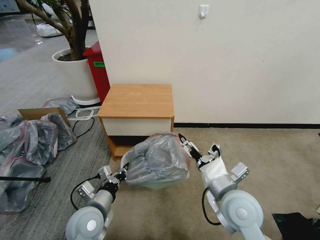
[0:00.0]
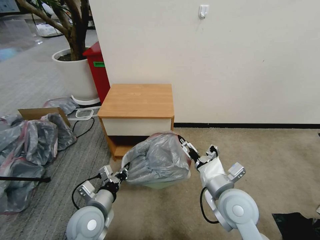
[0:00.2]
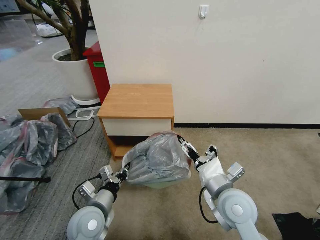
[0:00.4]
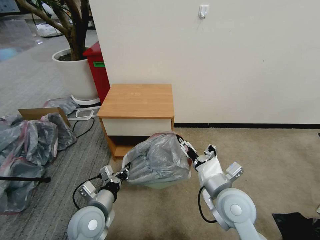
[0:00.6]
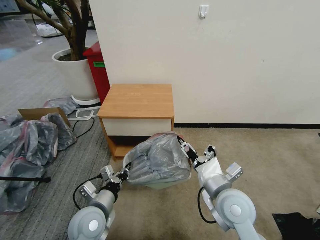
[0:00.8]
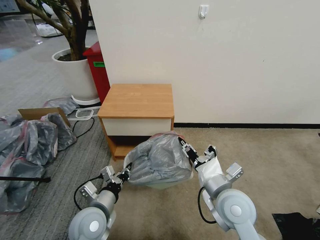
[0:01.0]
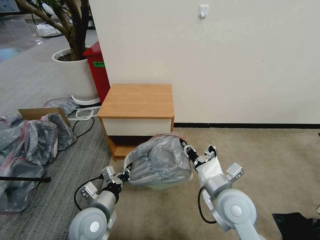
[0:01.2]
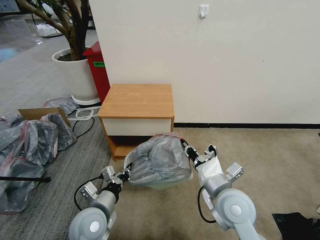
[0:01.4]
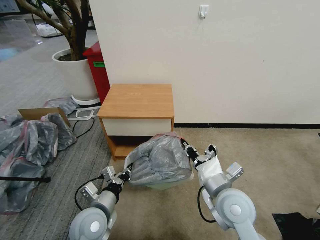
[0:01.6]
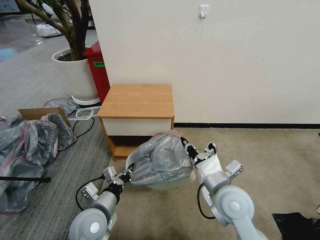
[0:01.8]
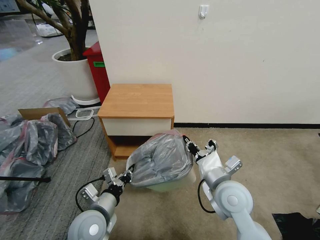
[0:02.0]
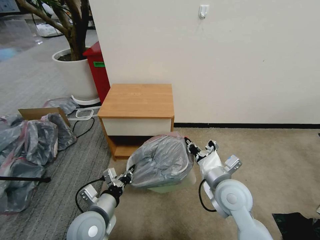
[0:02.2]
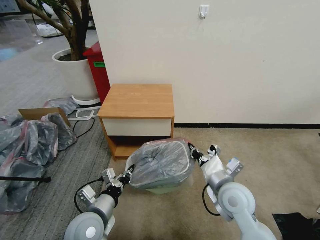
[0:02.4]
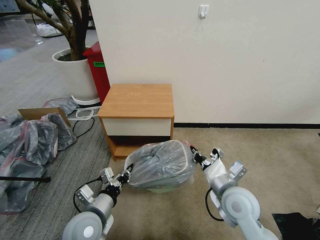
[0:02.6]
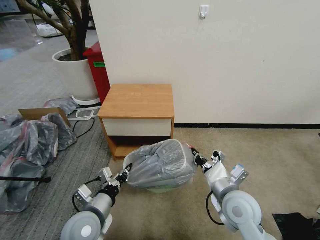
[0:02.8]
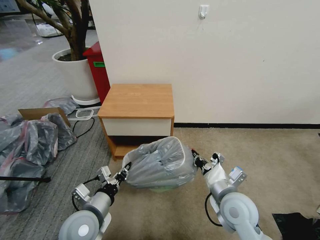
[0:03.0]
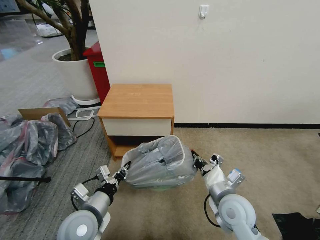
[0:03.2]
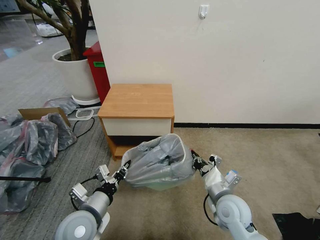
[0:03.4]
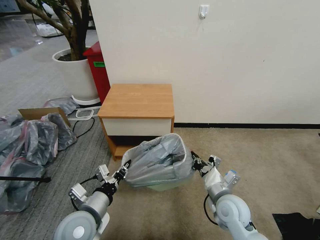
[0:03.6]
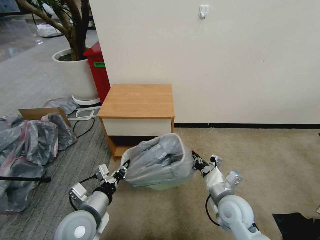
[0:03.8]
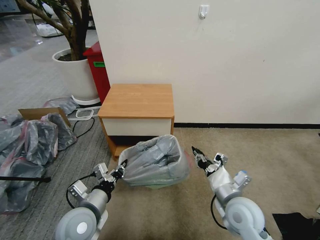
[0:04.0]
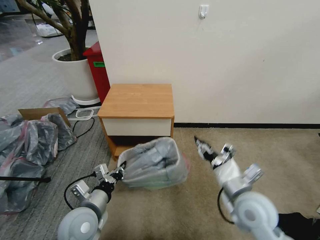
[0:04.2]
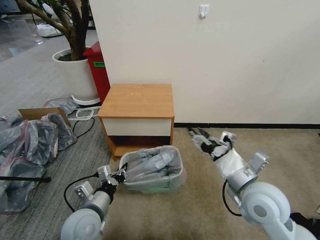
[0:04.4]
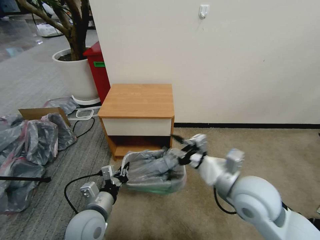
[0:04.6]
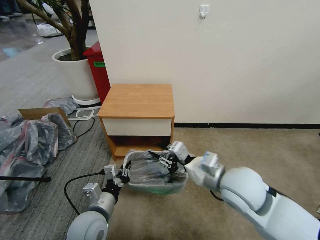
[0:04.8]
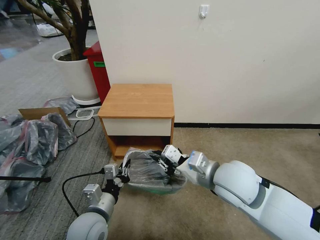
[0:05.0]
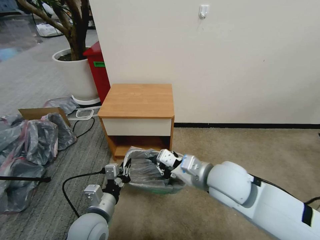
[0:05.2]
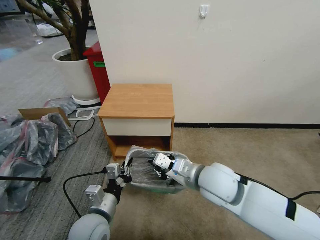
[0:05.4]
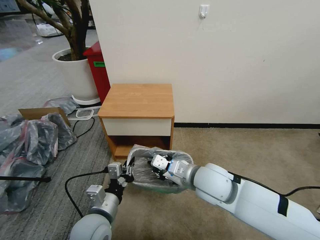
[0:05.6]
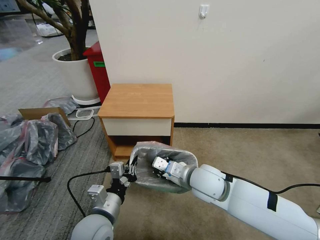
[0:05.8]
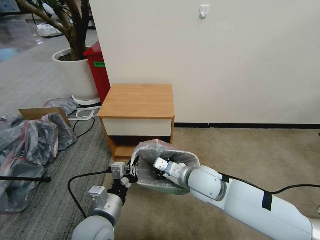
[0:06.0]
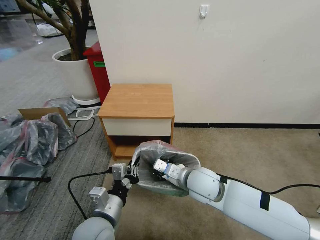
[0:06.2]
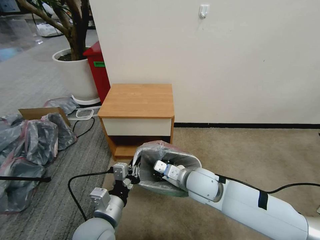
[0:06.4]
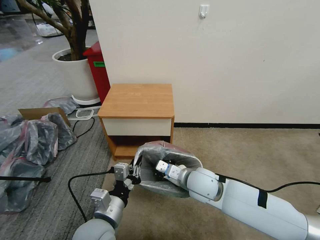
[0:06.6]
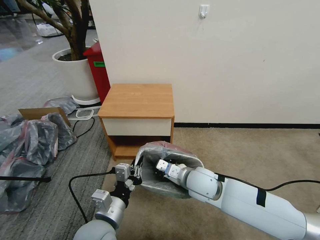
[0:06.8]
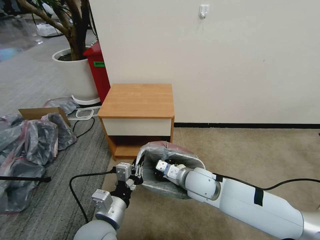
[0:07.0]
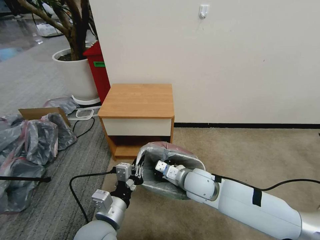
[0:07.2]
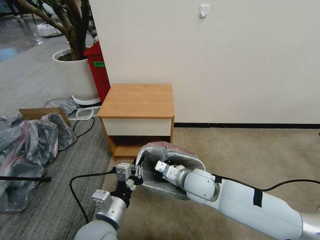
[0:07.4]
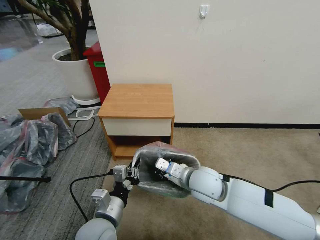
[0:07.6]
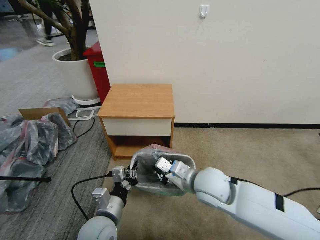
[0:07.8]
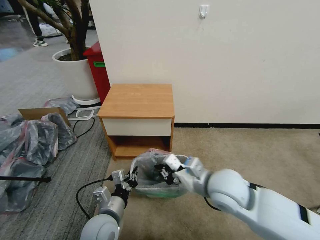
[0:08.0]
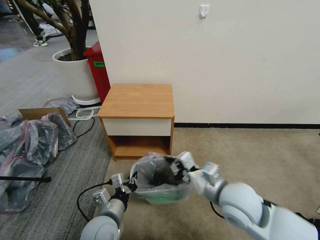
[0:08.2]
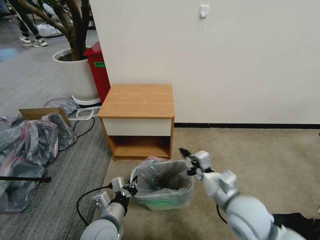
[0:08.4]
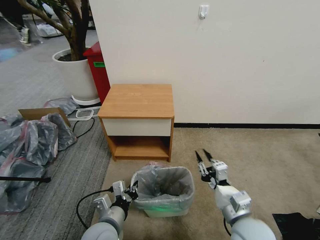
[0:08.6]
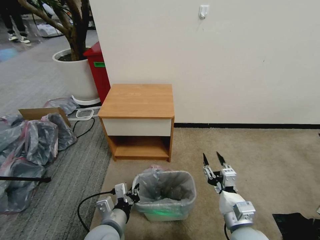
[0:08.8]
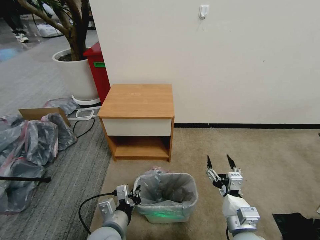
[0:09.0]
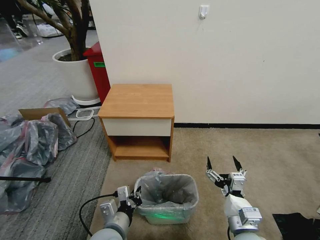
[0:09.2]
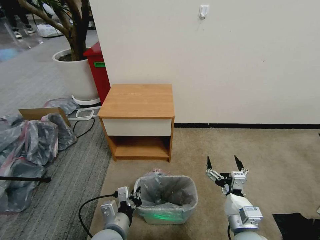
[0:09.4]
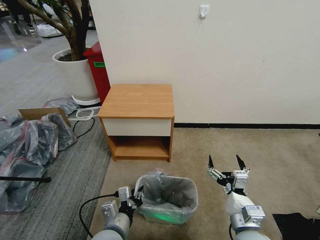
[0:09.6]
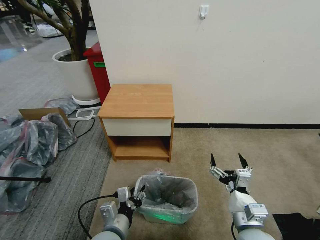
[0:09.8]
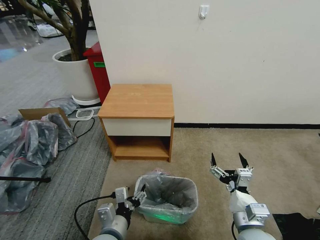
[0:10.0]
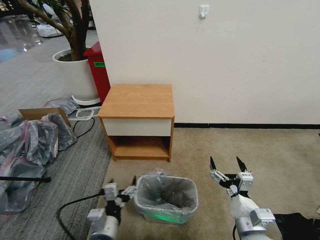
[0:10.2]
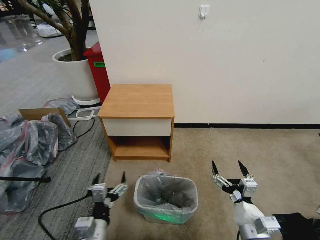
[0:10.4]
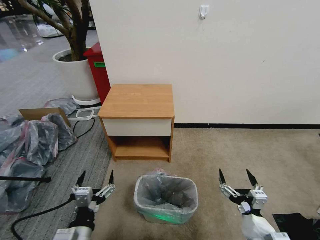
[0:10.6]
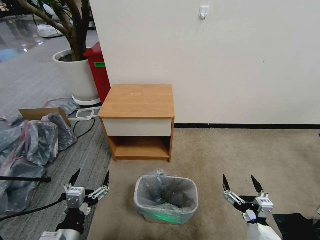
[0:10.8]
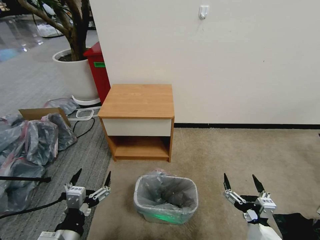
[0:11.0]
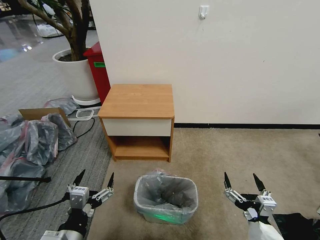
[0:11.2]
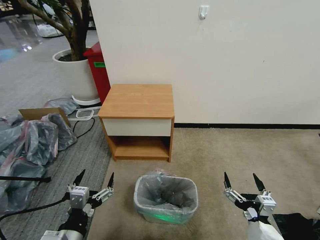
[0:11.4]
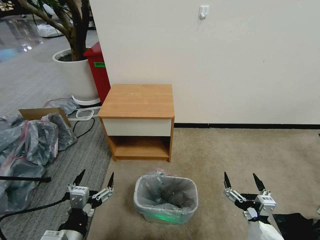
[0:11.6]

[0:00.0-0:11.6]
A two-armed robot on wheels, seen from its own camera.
Task of the whole recording: Pick up the garbage bag from the table and place it over the trash can.
0:00.0 to 0:01.4: The right gripper closes up.
0:01.4 to 0:02.8: The grippers stay close to where they were, moving slightly.
0:02.8 to 0:04.4: The right gripper travels upward by about 5 cm, and opens.
0:04.4 to 0:05.8: The right gripper heads to the left and forward, covering some 15 cm, and closes its fingers.
0:05.8 to 0:07.2: The right gripper goes approximately 5 cm downward.
0:07.2 to 0:08.8: The left gripper goes roughly 5 cm downward; the right gripper travels backward and to the right by roughly 20 cm, and opens.
0:08.8 to 0:10.2: The left gripper opens up, while the right gripper opens up.
0:10.2 to 0:11.6: The left gripper moves to the left and upward, about 10 cm. Meanwhile the right gripper is displaced backward by approximately 5 cm.

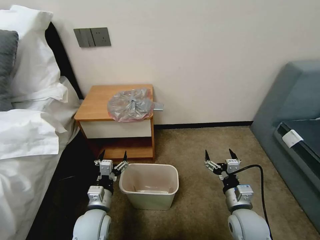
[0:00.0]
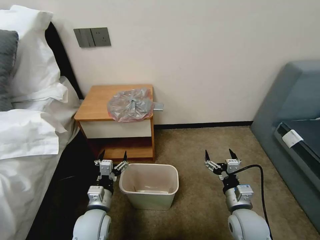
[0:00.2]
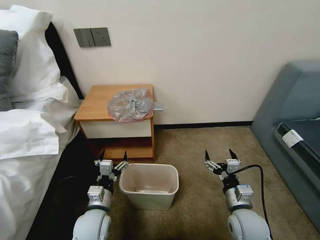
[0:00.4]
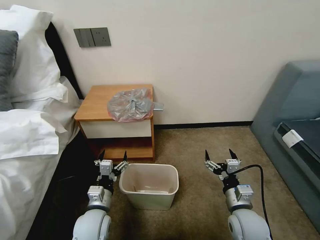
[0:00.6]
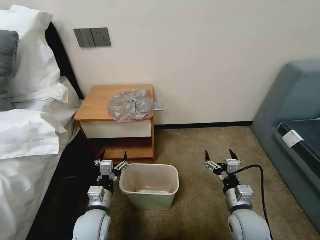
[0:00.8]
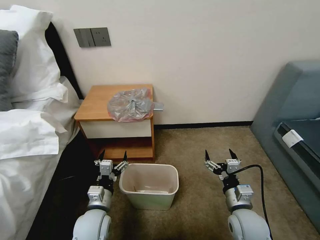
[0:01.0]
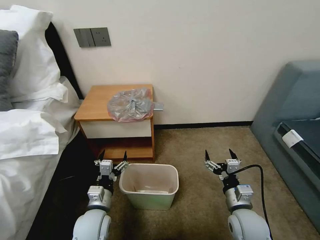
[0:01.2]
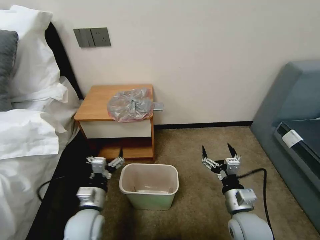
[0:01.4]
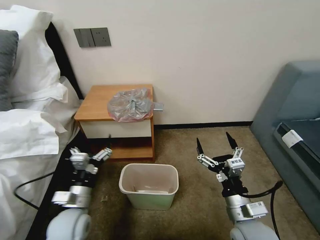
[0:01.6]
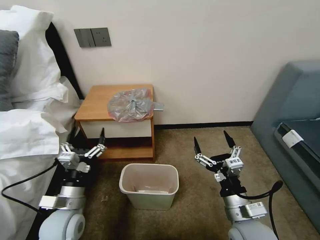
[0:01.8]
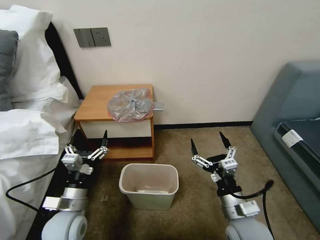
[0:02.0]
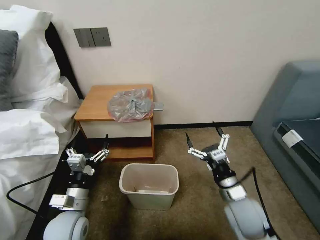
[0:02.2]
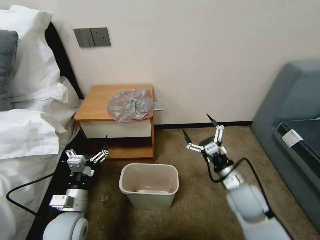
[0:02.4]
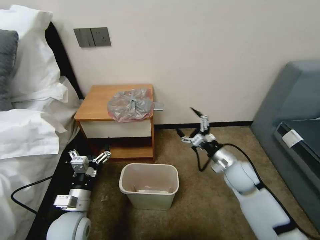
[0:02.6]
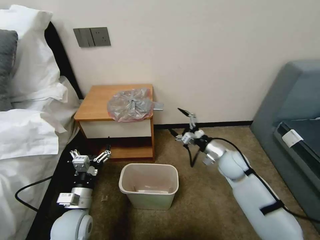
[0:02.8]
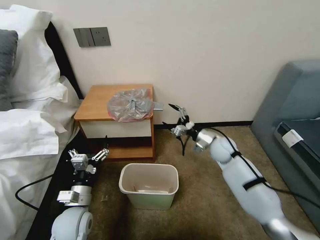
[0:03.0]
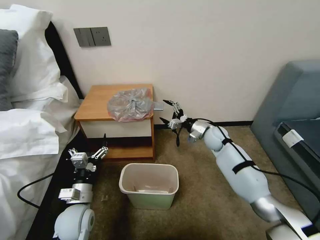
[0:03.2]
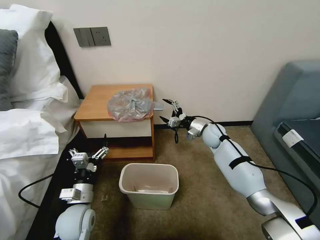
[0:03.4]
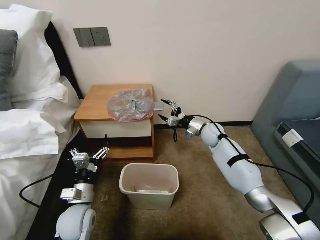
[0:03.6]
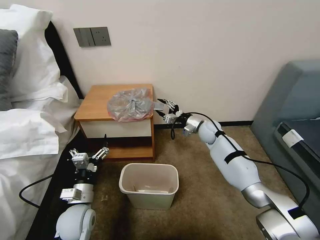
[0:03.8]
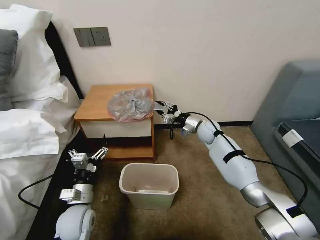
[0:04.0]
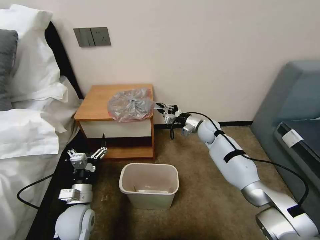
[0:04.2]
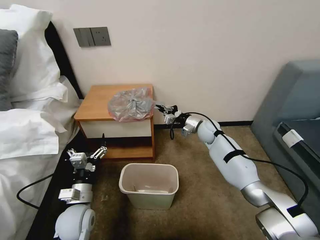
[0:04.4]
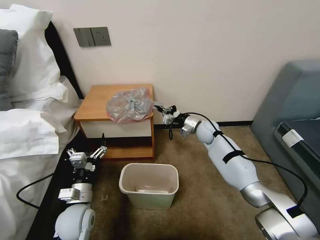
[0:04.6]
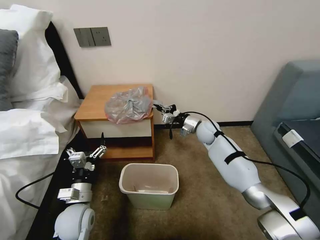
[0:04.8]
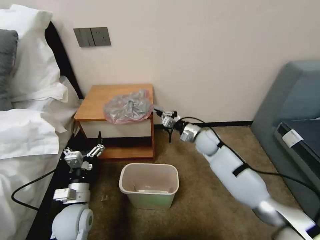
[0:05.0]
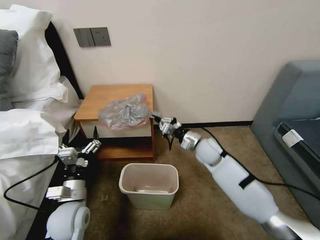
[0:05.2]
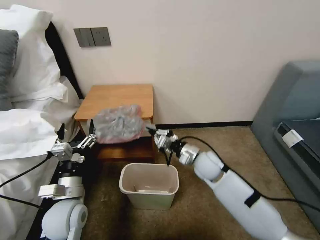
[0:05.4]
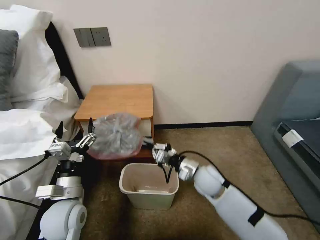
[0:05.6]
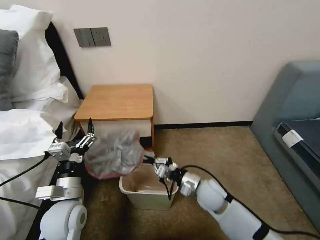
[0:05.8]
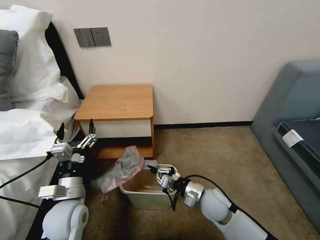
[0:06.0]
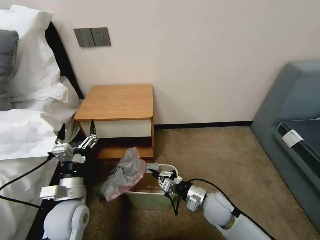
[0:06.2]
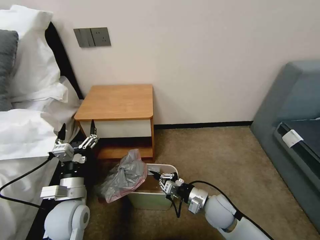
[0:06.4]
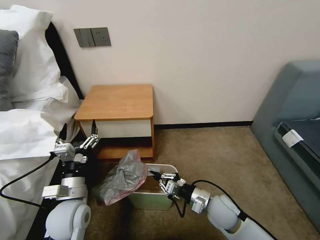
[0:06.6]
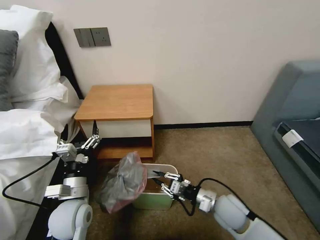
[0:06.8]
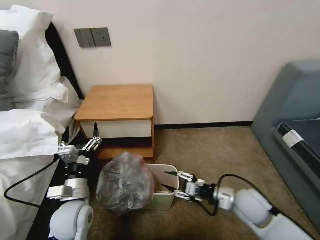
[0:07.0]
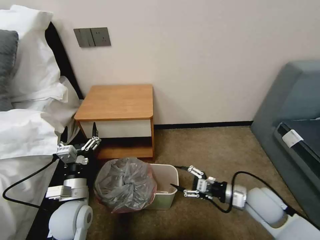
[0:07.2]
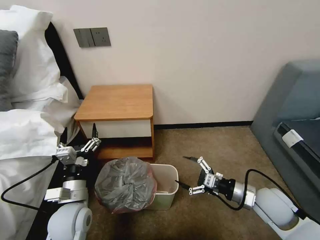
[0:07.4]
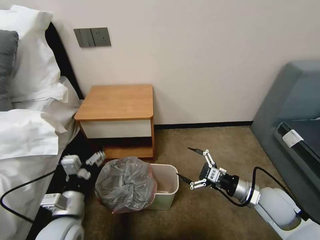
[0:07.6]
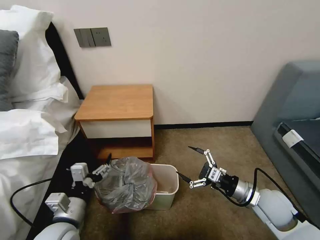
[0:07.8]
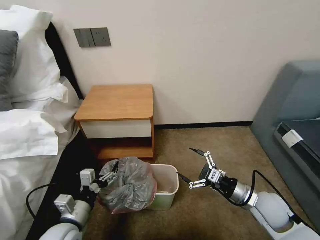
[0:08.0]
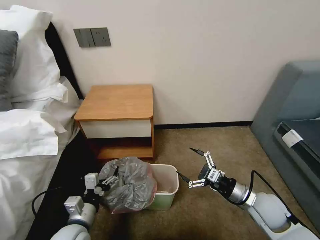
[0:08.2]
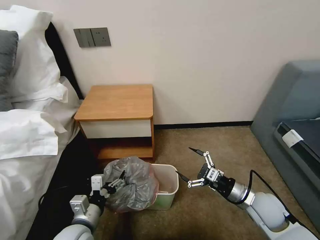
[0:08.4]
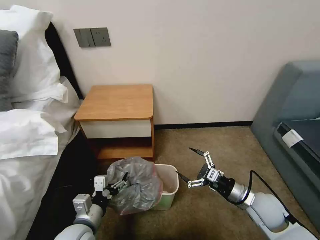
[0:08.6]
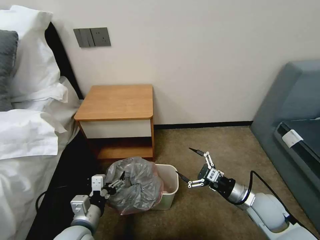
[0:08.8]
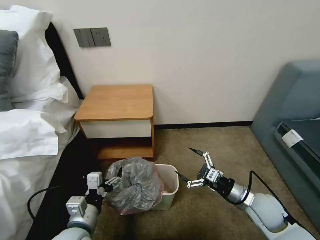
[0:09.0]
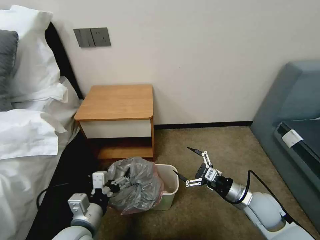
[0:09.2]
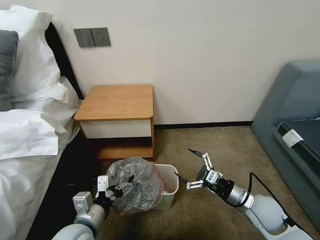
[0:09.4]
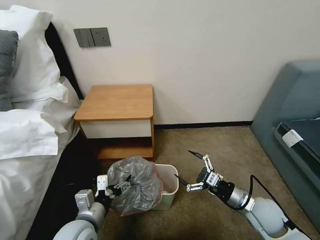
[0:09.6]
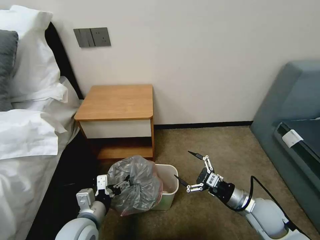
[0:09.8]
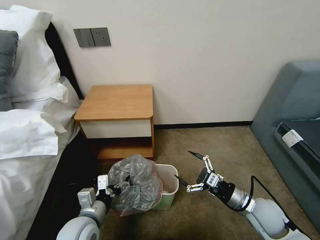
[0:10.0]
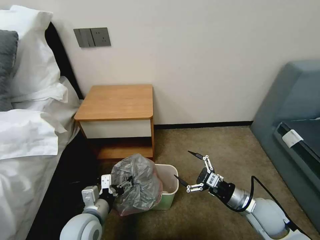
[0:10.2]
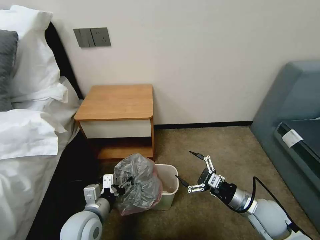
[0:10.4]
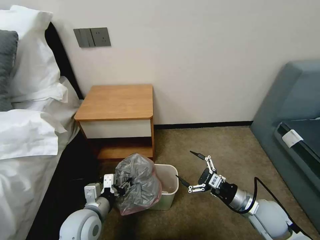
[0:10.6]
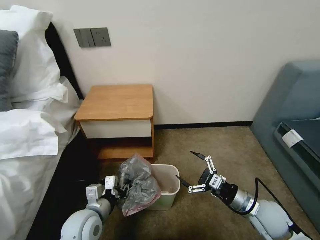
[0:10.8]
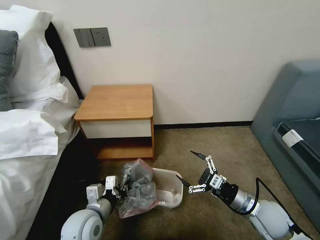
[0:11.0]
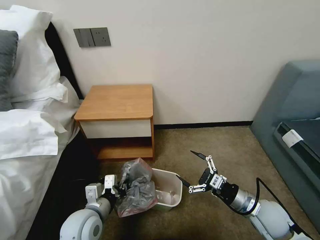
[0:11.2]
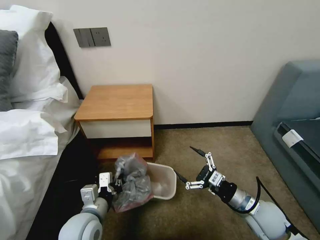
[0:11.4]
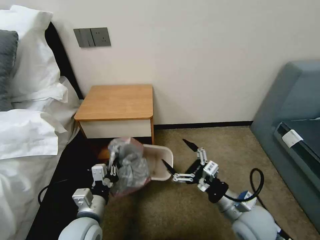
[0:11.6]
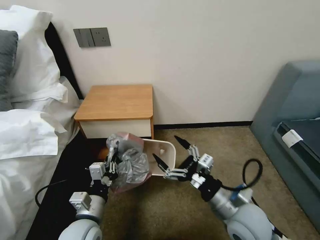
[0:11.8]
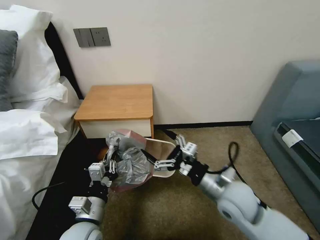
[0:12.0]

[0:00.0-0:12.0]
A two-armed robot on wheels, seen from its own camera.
Task of the whole recording: Pick up the garbage bag from the table and place it over the trash can.
0:01.6 to 0:03.0: The right gripper goes approximately 30 cm forward.
0:03.0 to 0:04.4: The right gripper is displaced forward by roughly 10 cm, and closes up.
0:04.4 to 0:06.0: The right gripper travels backward by roughly 25 cm, while the left gripper goes some 5 cm upward.
0:06.0 to 0:07.6: The right gripper shifts about 15 cm to the right and upward, and opens up.
0:09.0 to 0:10.4: The left gripper closes up.
0:10.4 to 0:12.0: The right gripper travels to the left and upward by about 15 cm. Meanwhile the left gripper closes its fingers.
